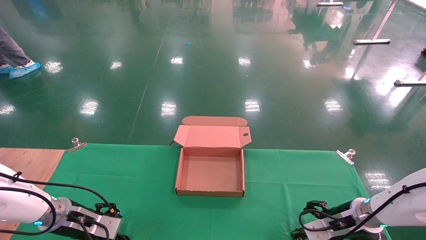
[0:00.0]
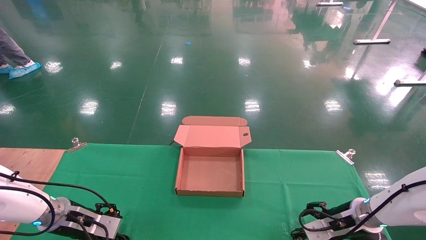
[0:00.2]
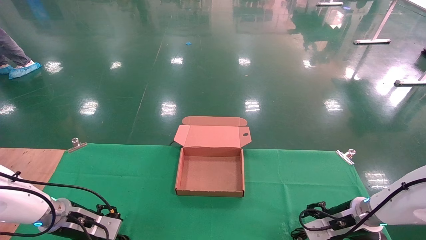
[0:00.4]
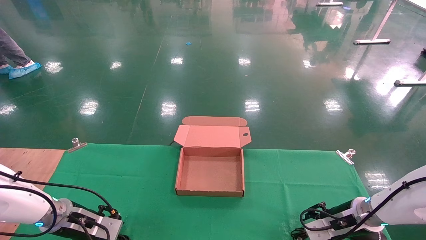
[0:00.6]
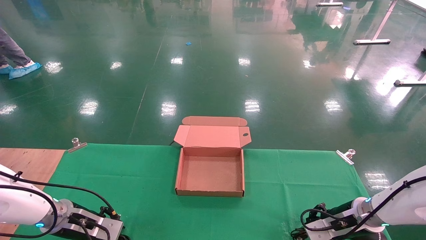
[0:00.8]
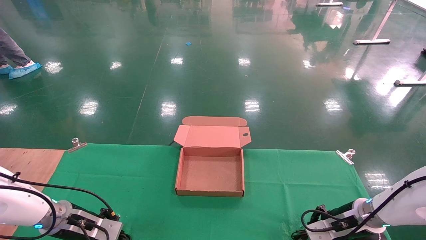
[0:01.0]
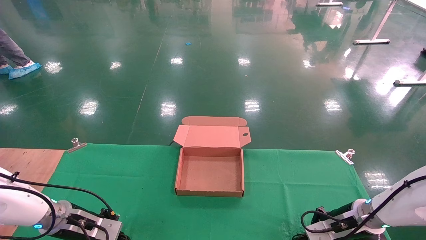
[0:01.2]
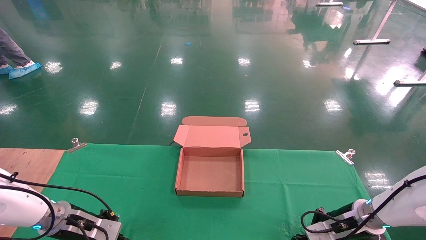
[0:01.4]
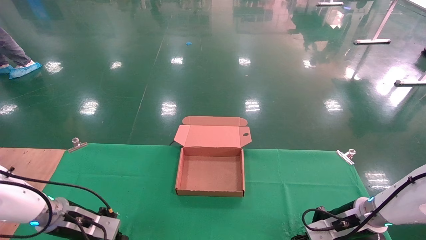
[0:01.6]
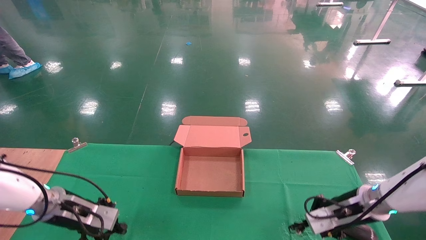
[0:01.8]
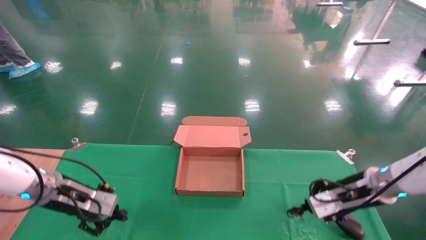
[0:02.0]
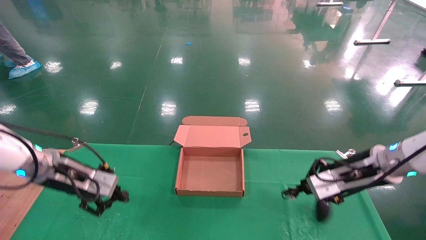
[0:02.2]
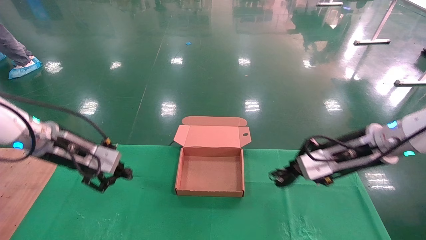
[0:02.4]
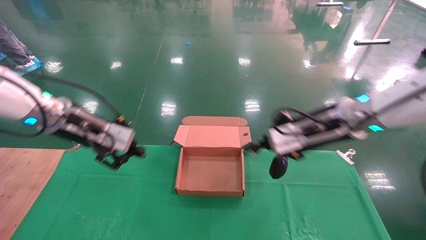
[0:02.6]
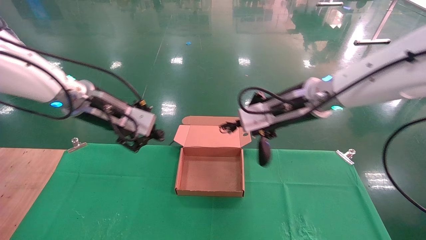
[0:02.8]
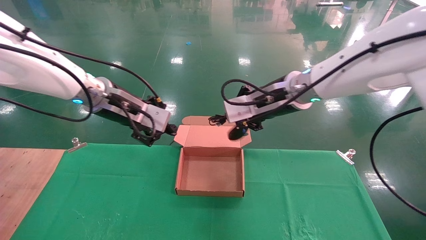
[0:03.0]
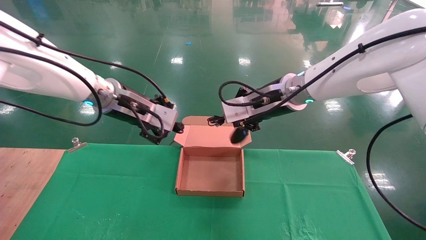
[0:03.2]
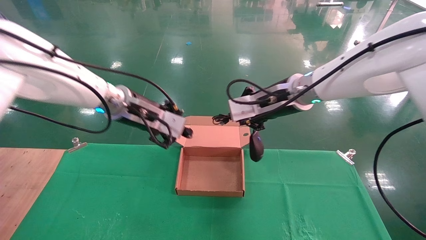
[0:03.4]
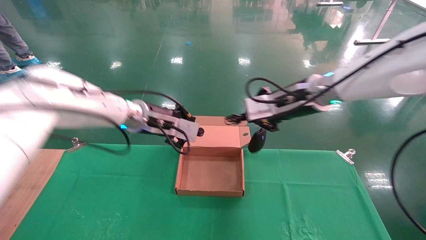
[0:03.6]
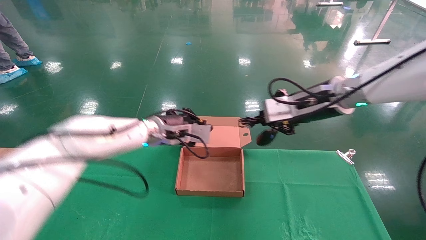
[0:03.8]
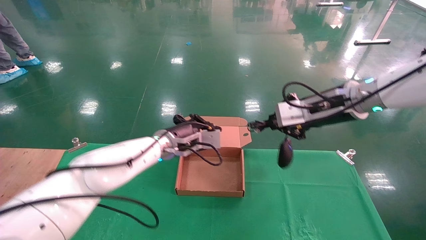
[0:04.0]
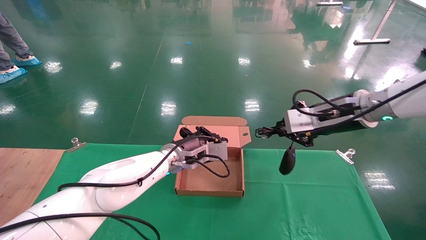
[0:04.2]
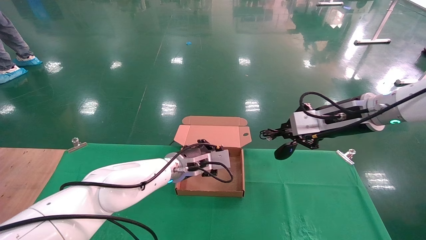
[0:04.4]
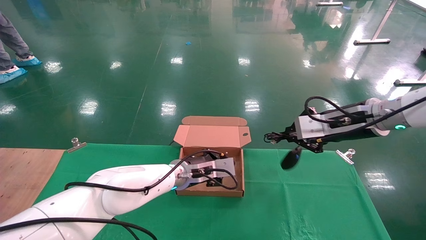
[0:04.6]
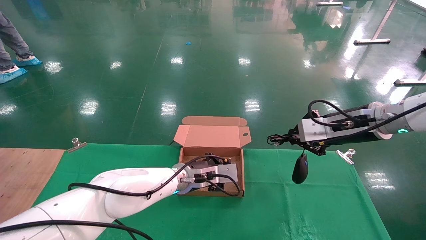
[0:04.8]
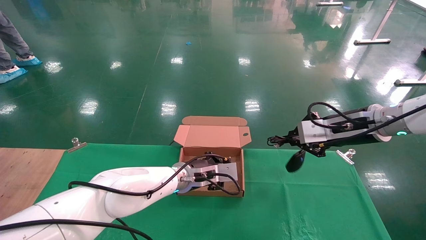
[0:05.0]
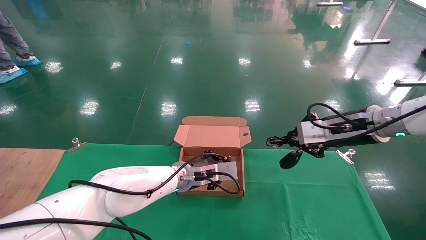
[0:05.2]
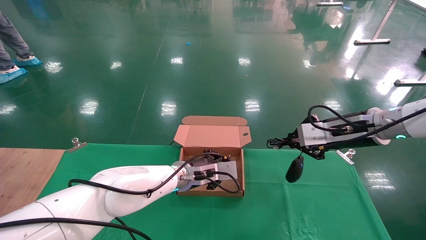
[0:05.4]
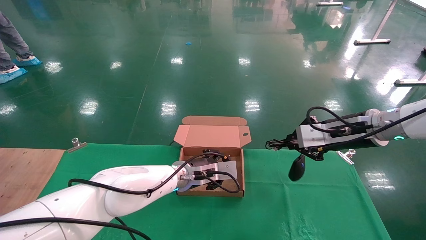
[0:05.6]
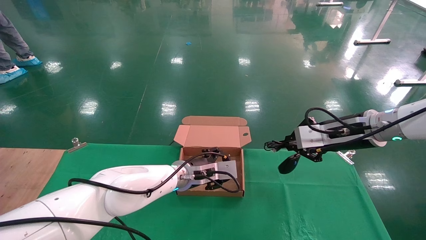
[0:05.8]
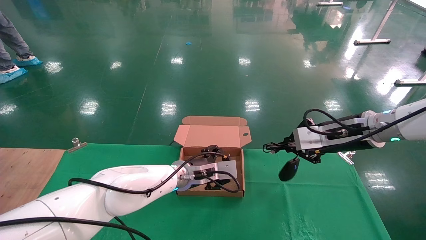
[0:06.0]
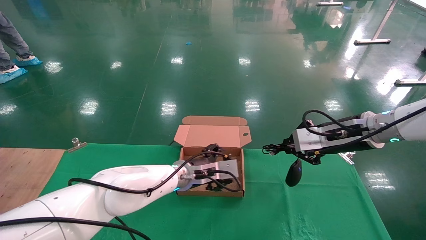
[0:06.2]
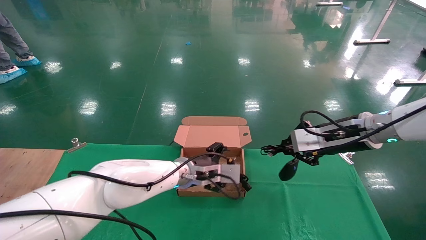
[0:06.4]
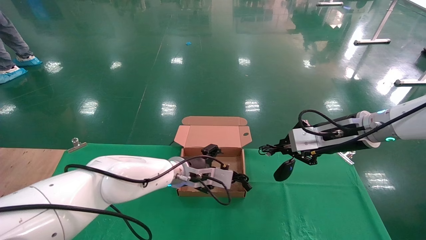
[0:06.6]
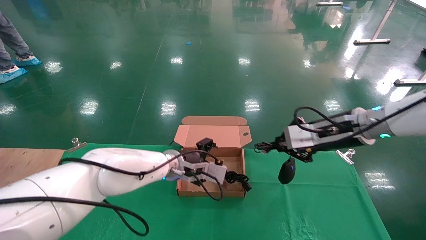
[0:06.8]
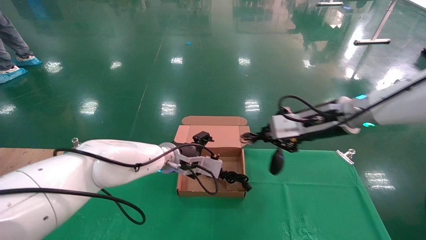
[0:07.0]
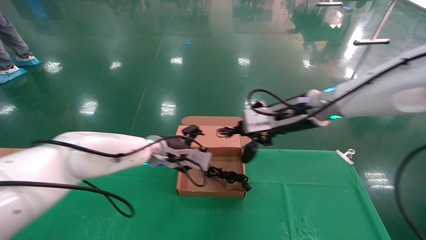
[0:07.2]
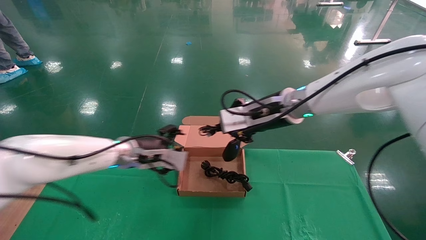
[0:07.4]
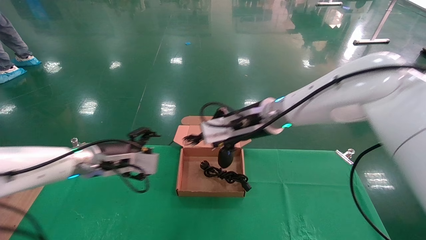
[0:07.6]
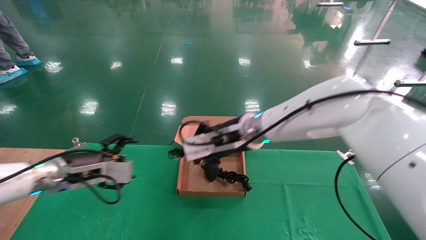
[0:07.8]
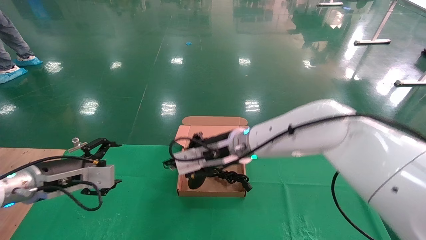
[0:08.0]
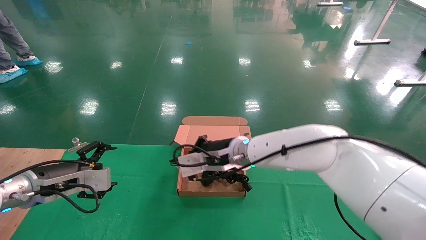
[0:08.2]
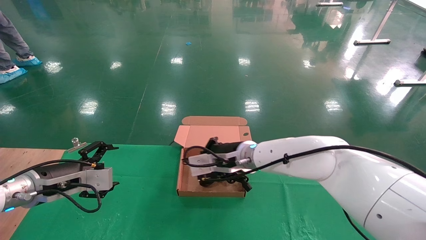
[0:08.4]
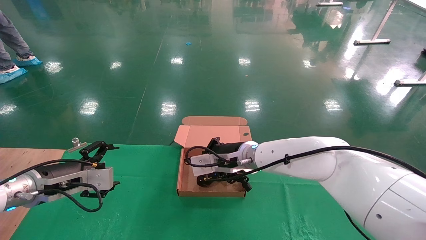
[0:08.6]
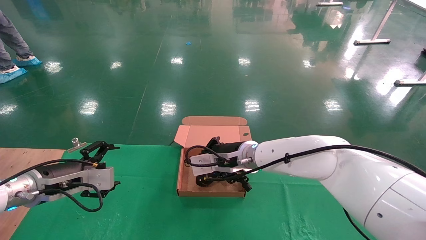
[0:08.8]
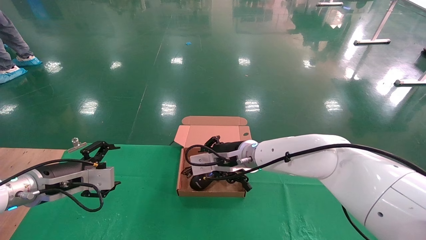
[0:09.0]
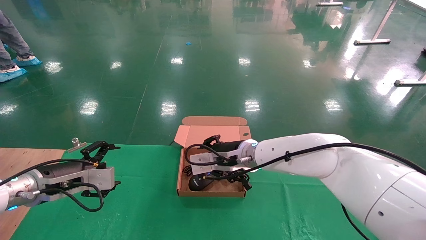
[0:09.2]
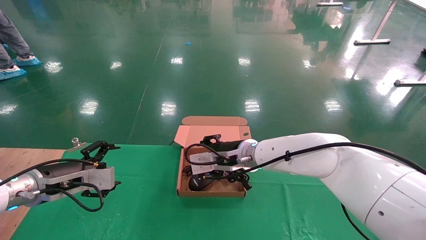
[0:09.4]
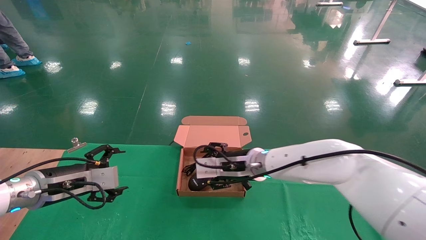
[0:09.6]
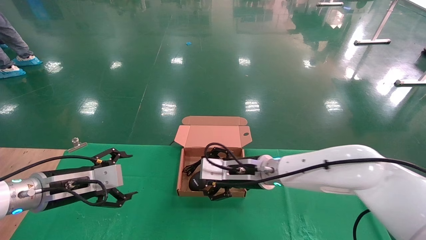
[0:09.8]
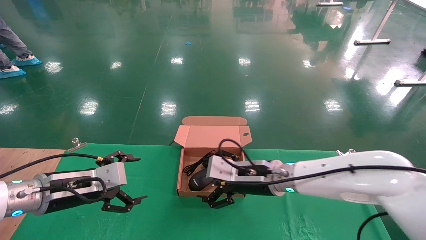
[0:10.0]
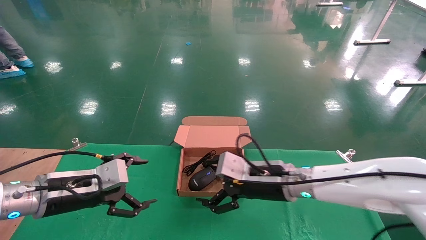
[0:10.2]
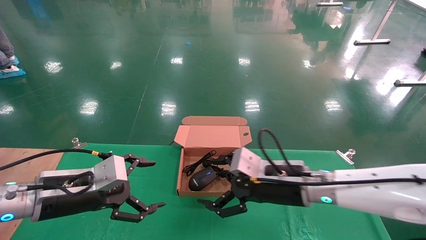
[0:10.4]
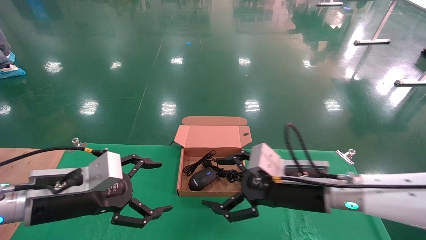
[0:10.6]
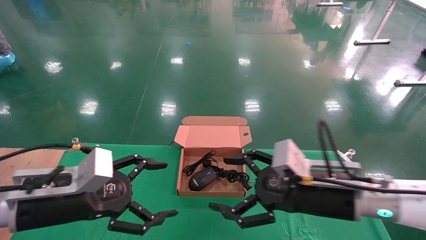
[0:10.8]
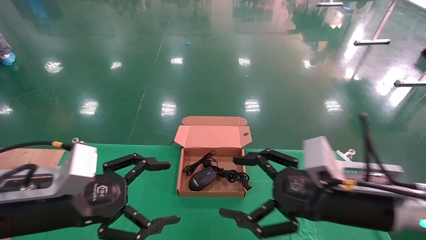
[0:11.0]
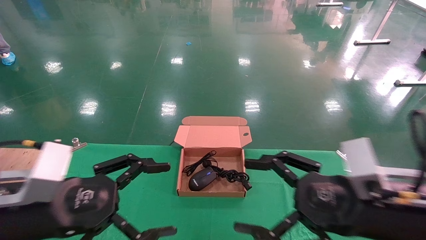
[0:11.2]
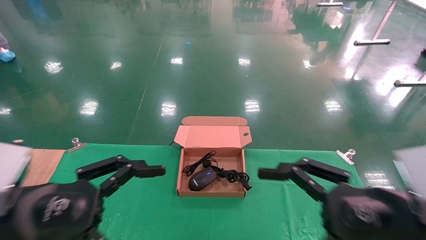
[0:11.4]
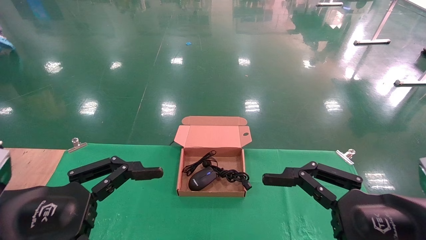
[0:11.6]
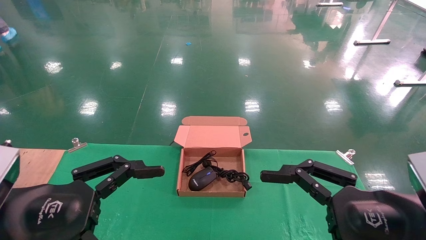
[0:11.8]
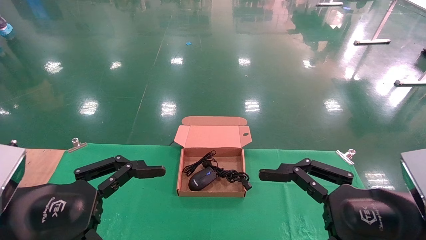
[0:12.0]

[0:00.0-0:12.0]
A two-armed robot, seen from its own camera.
Step, 0:01.6 to 0:08.4: Place the mouse and power cord into the box.
0:00.0 to 0:01.6: The right gripper closes up; the left gripper closes.
0:01.6 to 0:03.0: The left gripper moves upward and to the right, roughly 30 cm; the right gripper moves upward and to the left, about 30 cm.
0:03.0 to 0:04.4: The left gripper heads downward and to the right, covering some 25 cm, while the right gripper heads to the right, covering about 15 cm.
0:04.4 to 0:06.0: The left gripper opens up.
0:06.0 to 0:07.6: The grippers both shift to the left by approximately 20 cm.
0:07.6 to 0:09.0: The left gripper travels to the left and backward by about 10 cm; the right gripper travels downward by about 10 cm.
0:09.0 to 0:10.4: The left gripper travels to the right and backward by about 10 cm. Meanwhile the right gripper heads backward and to the right, covering roughly 15 cm, and opens up.
0:10.4 to 0:12.0: The right gripper is displaced backward and to the right by roughly 20 cm. Meanwhile the left gripper goes about 10 cm backward.

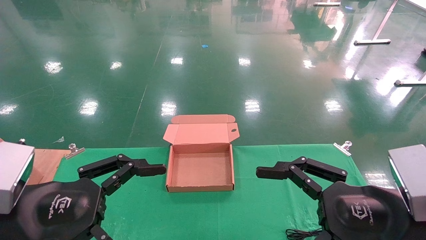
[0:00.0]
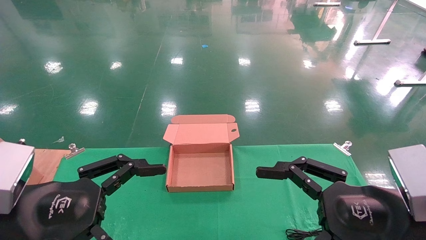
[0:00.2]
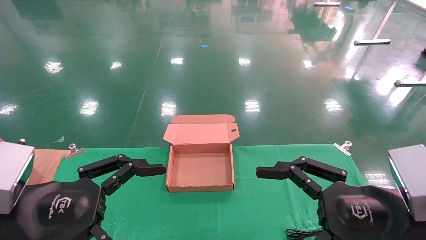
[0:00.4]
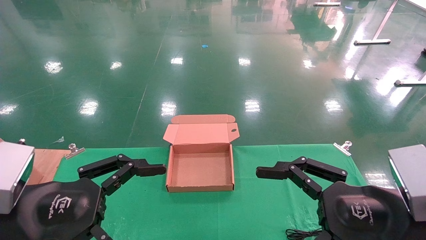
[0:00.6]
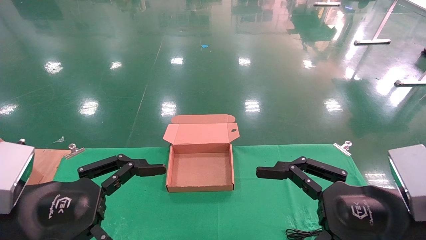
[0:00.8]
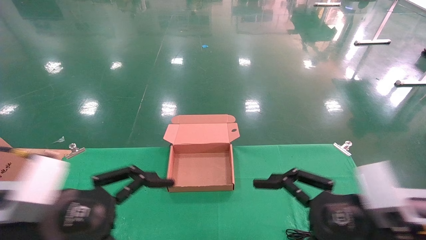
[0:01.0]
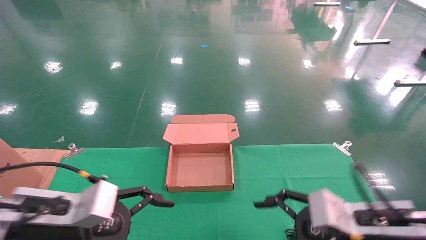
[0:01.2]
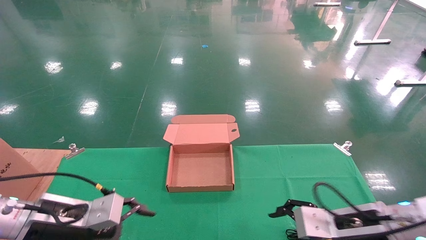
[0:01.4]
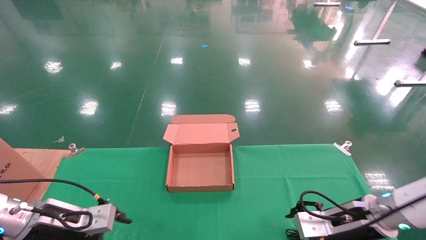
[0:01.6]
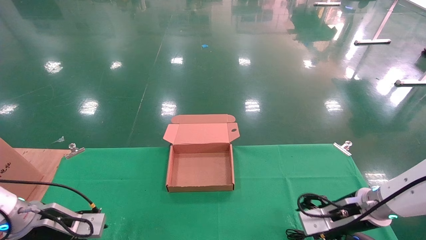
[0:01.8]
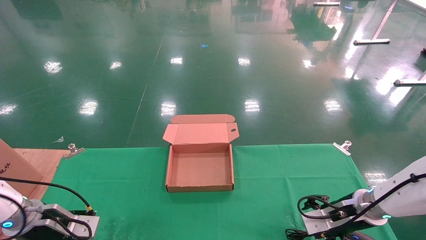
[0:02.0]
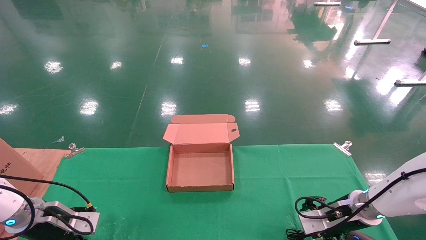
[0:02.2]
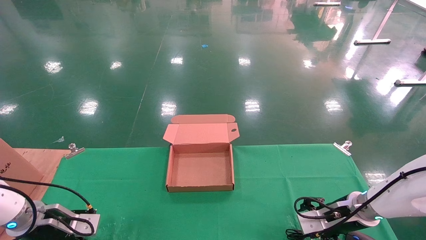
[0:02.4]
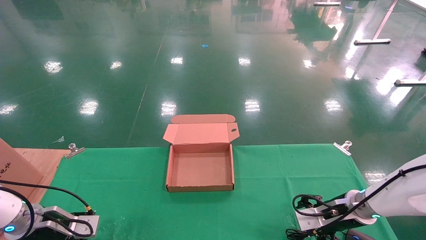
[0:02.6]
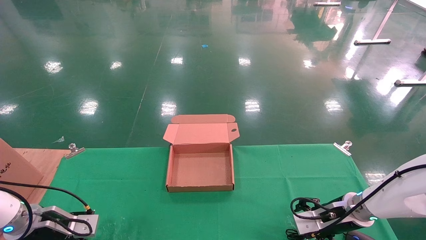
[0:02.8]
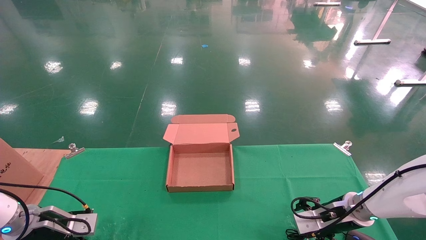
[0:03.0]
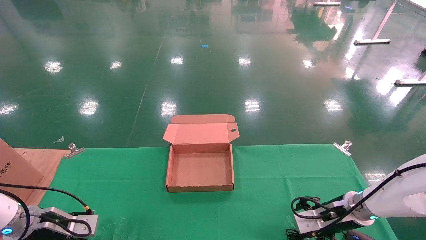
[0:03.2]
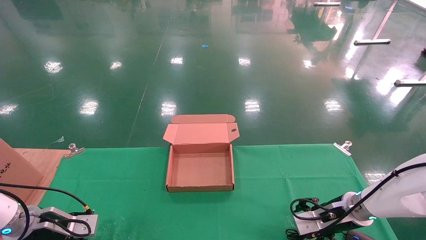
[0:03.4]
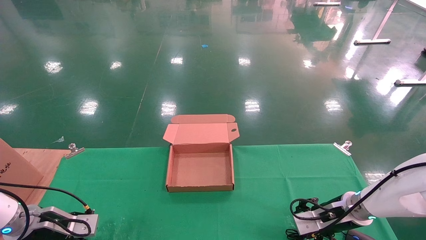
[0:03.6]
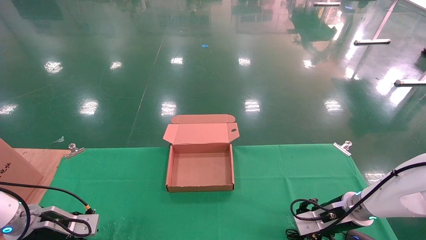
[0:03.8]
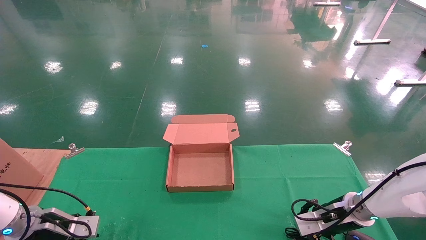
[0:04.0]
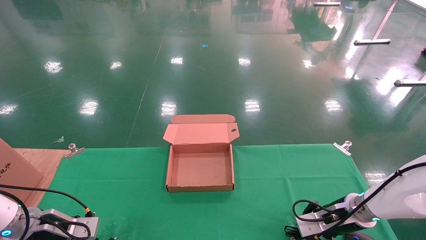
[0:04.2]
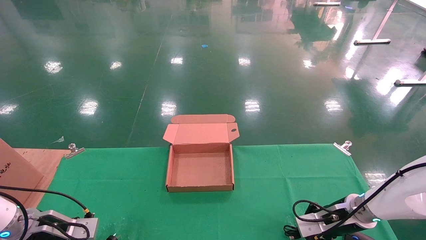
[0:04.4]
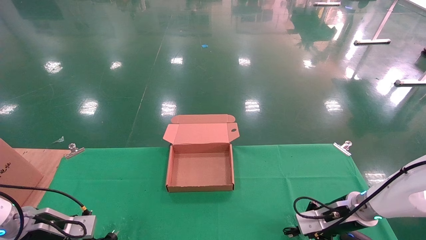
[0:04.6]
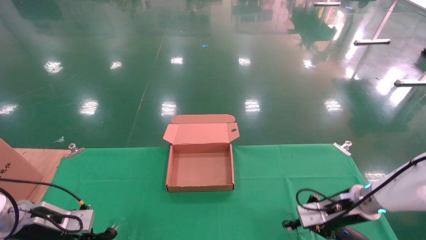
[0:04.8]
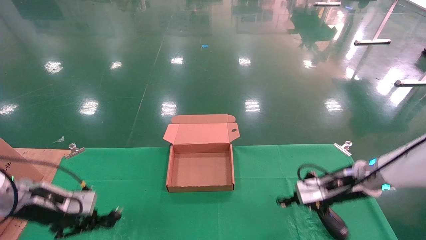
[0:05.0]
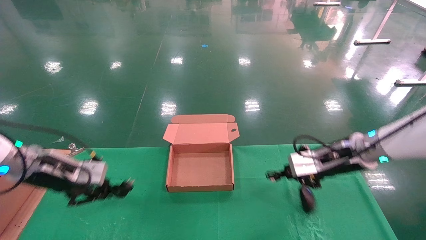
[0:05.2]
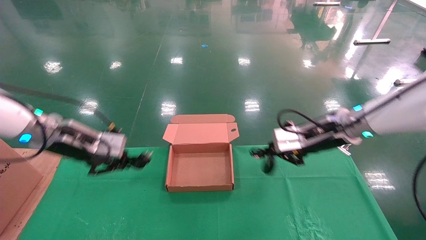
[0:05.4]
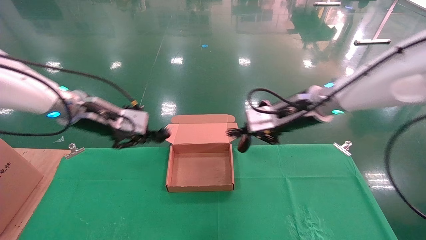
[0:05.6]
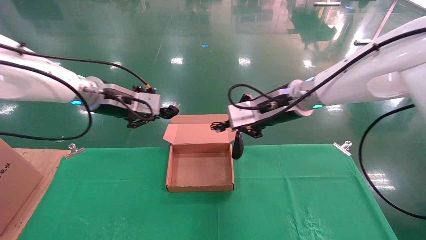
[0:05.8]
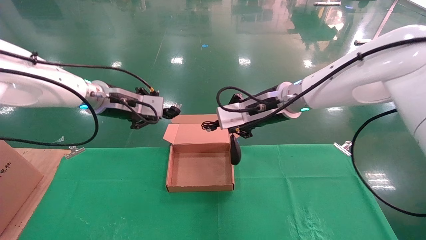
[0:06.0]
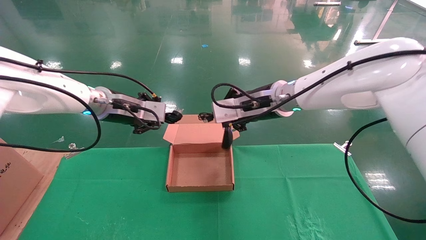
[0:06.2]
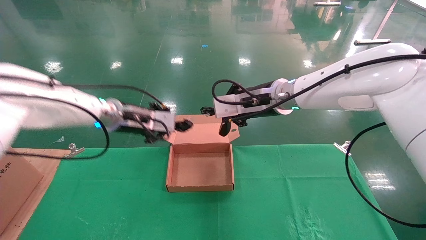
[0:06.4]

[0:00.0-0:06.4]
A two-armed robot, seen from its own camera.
Step, 0:01.2 to 0:05.0: Grab and lift both the mouse and power cord from the accessory packaging area at the same time.
0:00.0 to 0:01.6: The right gripper moves forward and downward, roughly 20 cm. The left gripper heads forward, downward and to the left, covering roughly 20 cm.
0:01.6 to 0:03.2: The left gripper goes roughly 5 cm to the left; the right gripper moves forward, about 5 cm.
0:03.2 to 0:04.8: The left gripper closes its fingers. Meanwhile the right gripper closes its fingers.
0:04.8 to 0:06.4: The right gripper shifts approximately 30 cm upward and to the left; the left gripper travels to the right, upward and forward by some 25 cm.
